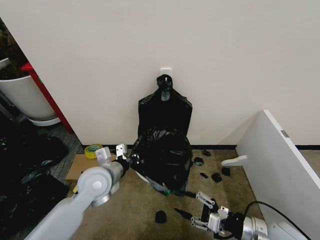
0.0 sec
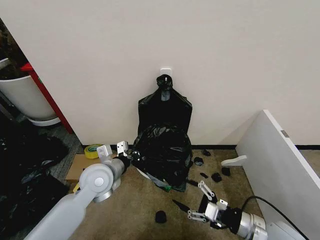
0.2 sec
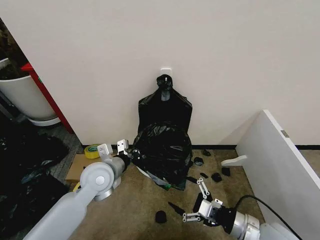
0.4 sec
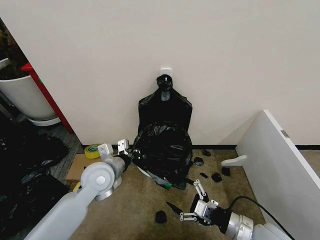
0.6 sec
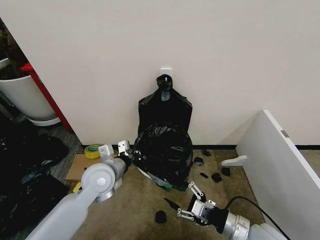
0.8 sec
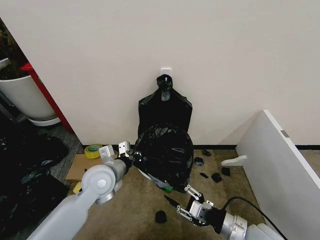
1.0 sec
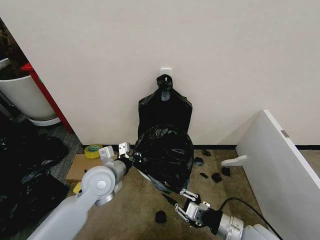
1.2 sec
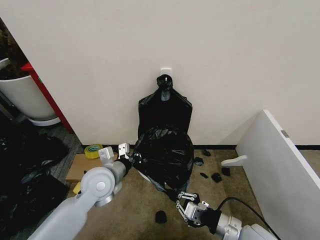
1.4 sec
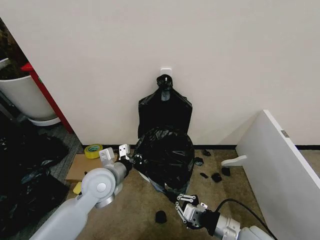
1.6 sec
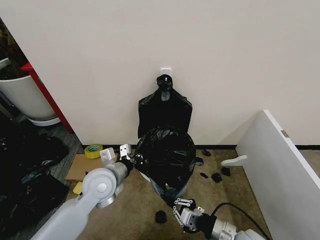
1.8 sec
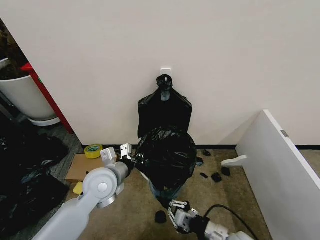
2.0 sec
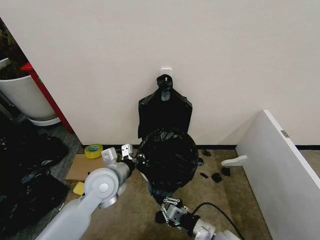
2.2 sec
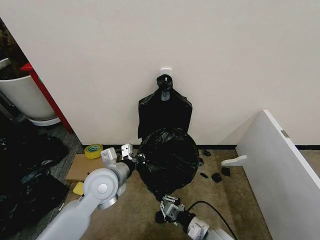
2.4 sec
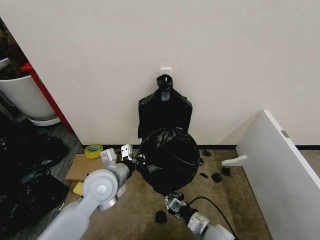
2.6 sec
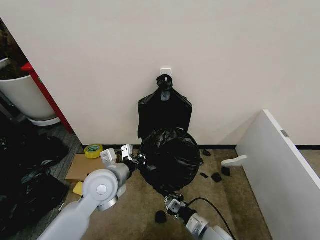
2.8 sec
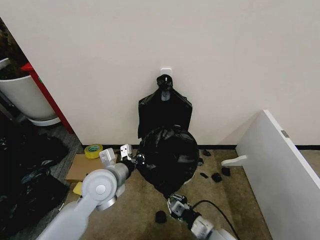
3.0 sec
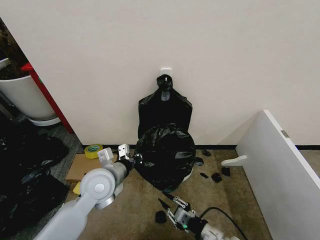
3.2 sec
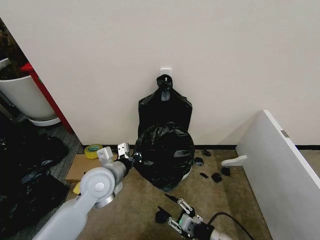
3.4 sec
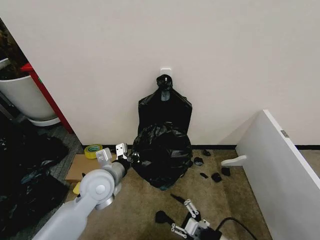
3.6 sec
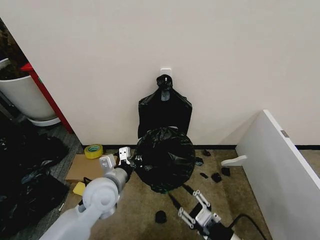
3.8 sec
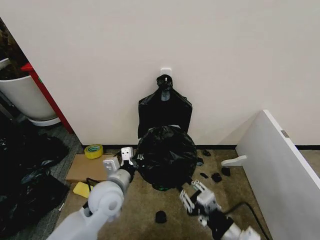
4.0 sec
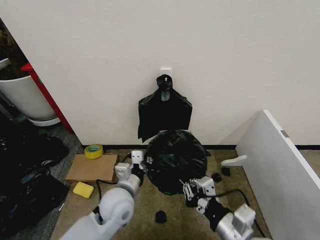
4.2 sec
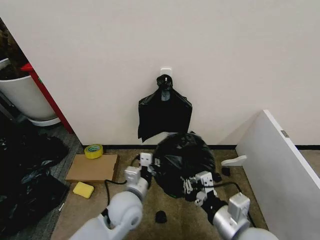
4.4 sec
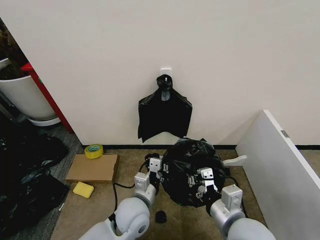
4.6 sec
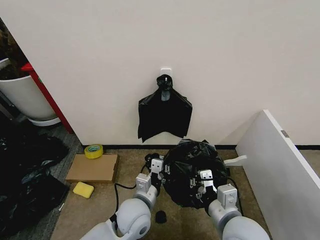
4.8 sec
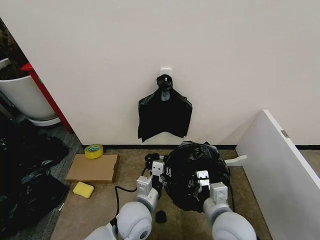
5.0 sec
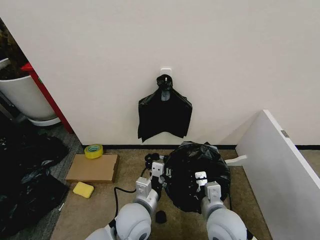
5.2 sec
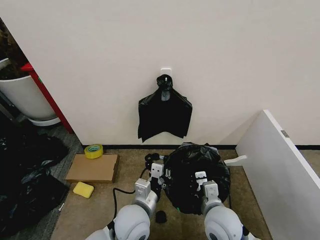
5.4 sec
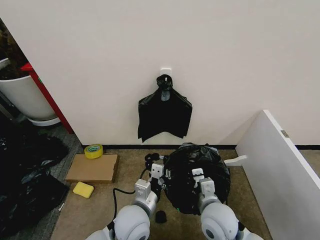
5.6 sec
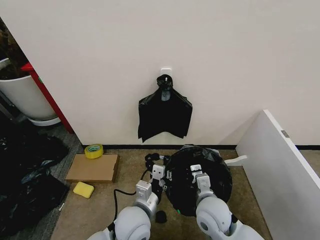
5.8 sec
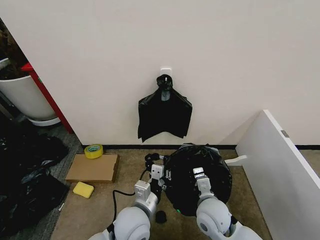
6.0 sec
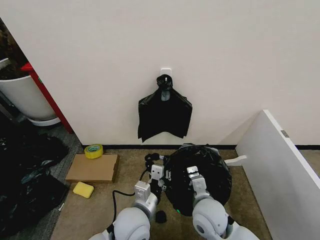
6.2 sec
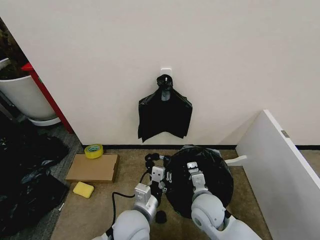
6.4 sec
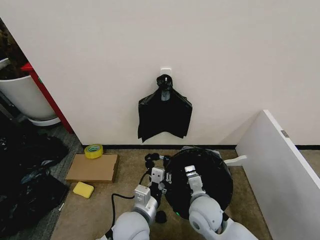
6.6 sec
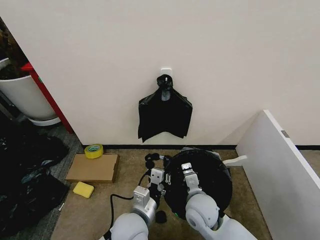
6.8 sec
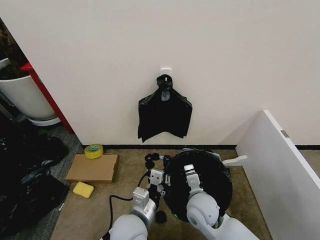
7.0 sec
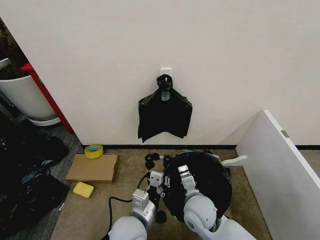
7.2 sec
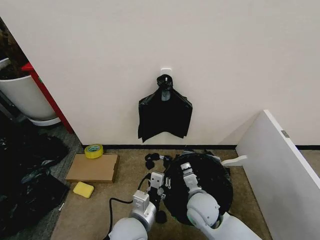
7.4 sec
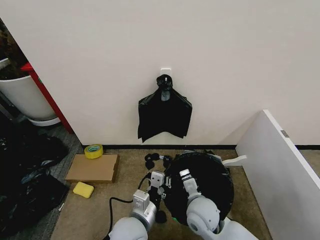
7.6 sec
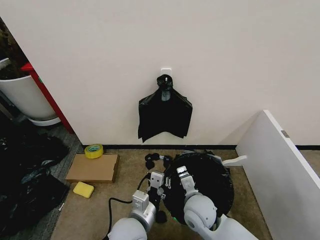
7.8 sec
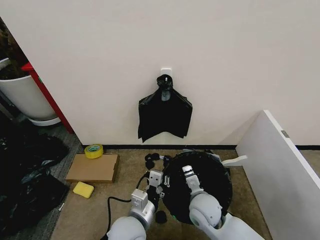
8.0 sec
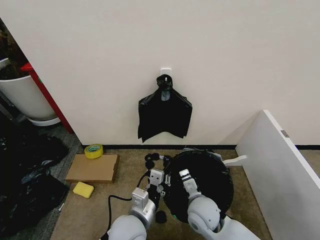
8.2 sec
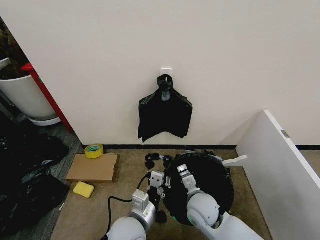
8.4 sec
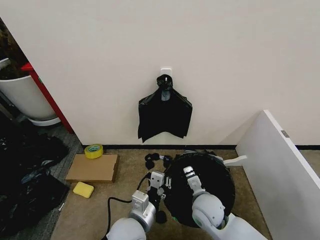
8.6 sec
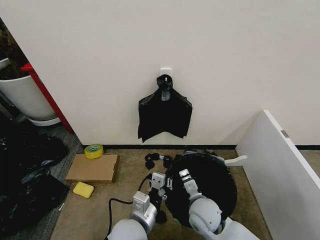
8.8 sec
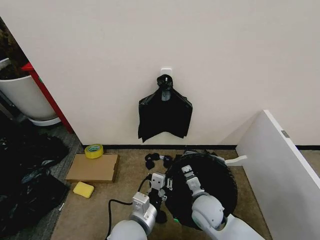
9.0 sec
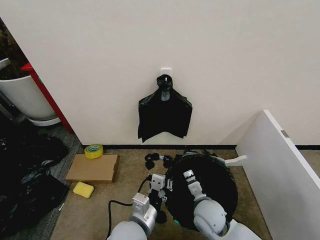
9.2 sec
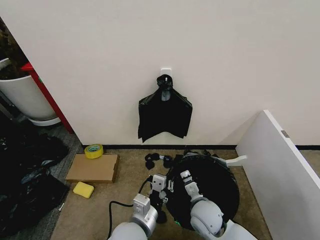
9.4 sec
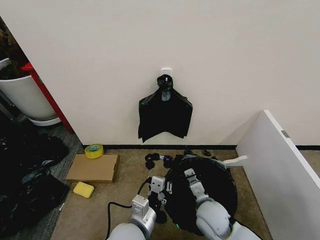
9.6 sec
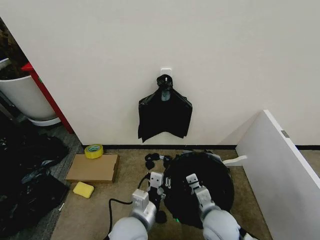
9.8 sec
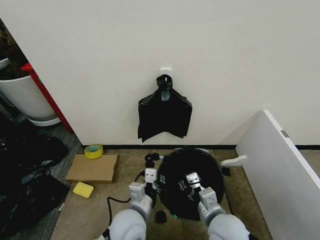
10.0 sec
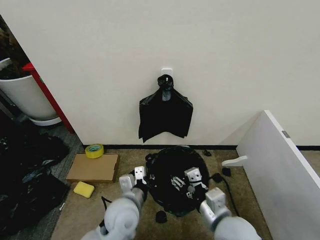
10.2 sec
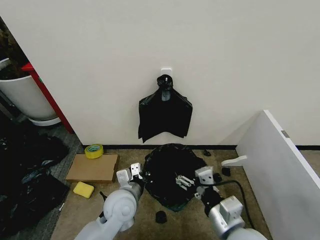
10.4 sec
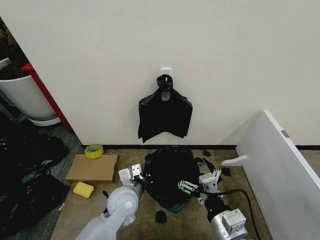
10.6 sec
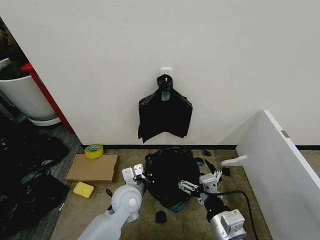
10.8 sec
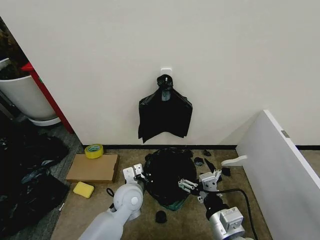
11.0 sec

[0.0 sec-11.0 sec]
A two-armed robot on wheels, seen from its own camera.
Task of the whole recording: Place the garbage bag over the trash bin.
0.0 sec to 1.6 sec: The right gripper travels to the left by approximately 5 cm, and closes.
1.6 sec to 3.2 sec: The right gripper heads downward, covering some 5 cm.
3.2 sec to 4.8 sec: The left gripper goes about 15 cm to the right, downward and backward, while the right gripper heads upward, covering about 15 cm, and opens, then closes again.
4.8 sec to 6.2 sec: The right gripper goes about 10 cm downward and forward.
6.2 sec to 9.4 sec: The grippers stay close to where they were, moving slightly.
9.4 sec to 11.0 sec: The right gripper heads backward and upward, covering approximately 15 cm, and opens its fingers. Meanwhile the left gripper heads forward, covering some 15 cm.

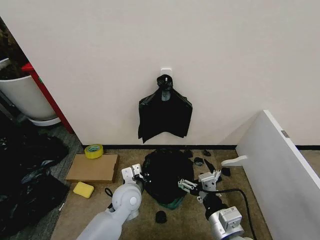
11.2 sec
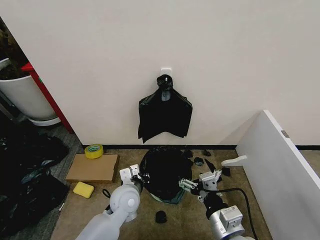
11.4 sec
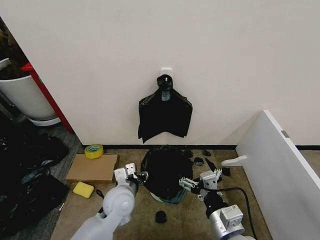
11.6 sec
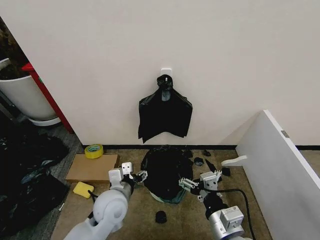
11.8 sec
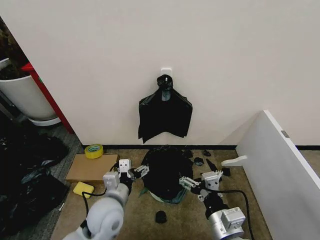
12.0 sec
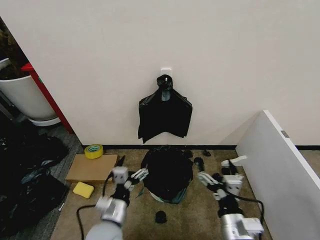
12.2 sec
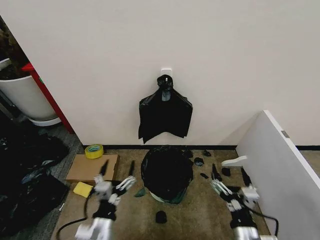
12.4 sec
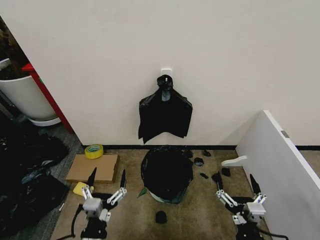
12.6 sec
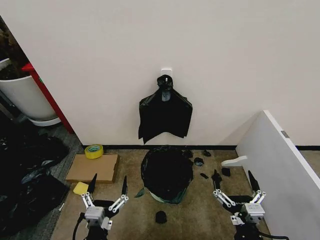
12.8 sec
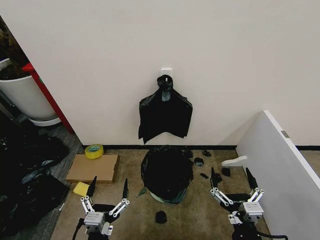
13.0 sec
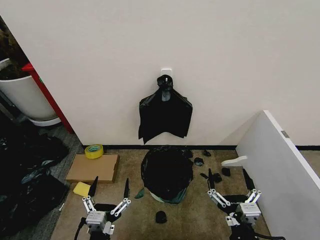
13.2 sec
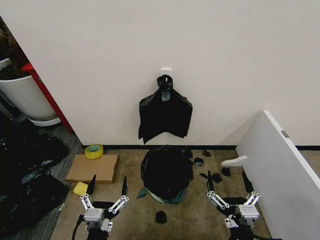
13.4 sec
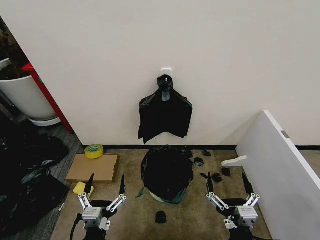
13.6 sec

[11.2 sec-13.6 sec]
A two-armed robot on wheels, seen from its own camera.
Task of the whole recording: Place the garbage bag over the trash bin.
11.2 sec to 12.4 sec: The left gripper shifts some 15 cm backward, and opens up; the right gripper heads downward, covering roughly 5 cm.
12.4 sec to 13.6 sec: The left gripper goes roughly 5 cm backward.
